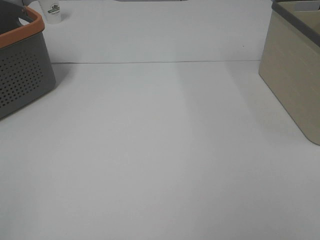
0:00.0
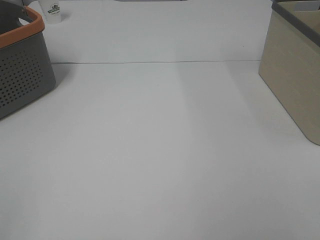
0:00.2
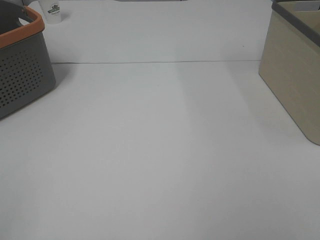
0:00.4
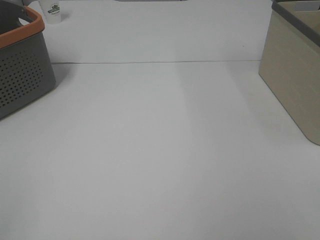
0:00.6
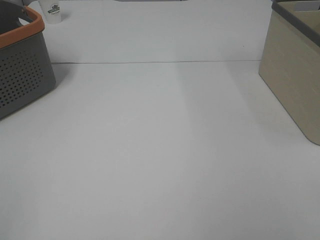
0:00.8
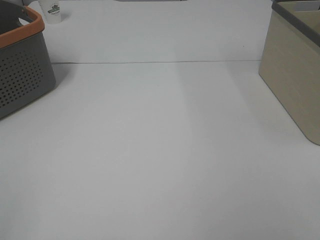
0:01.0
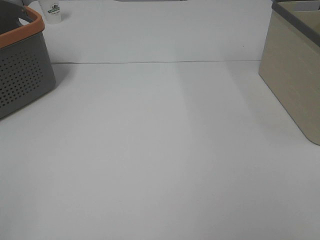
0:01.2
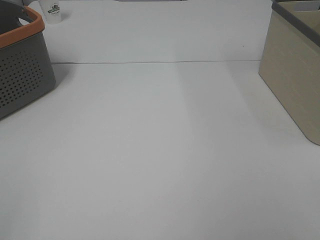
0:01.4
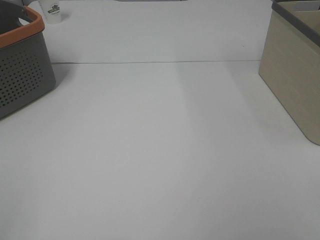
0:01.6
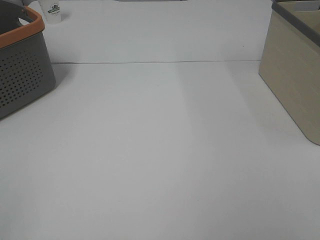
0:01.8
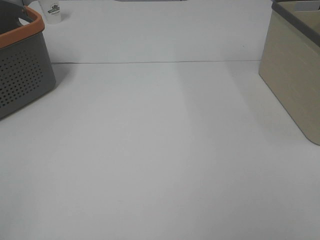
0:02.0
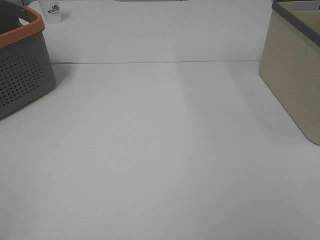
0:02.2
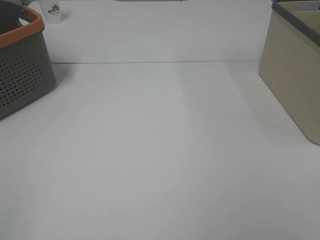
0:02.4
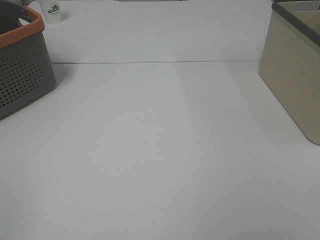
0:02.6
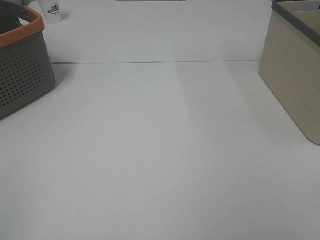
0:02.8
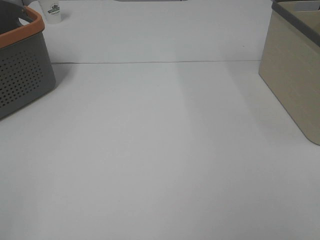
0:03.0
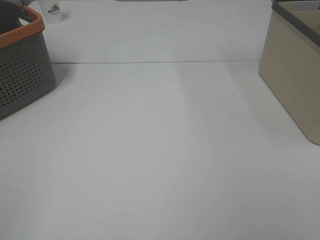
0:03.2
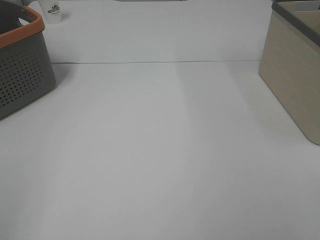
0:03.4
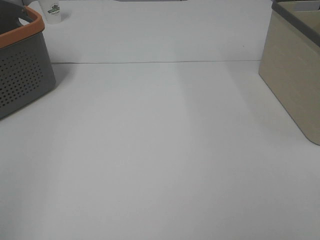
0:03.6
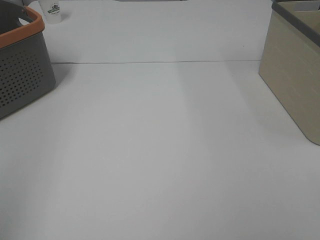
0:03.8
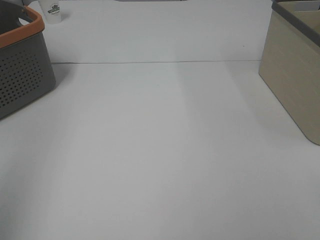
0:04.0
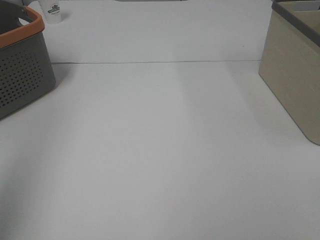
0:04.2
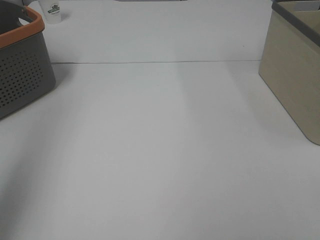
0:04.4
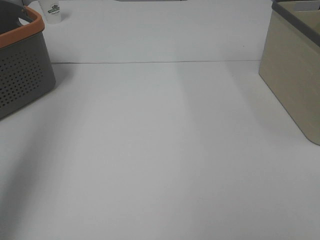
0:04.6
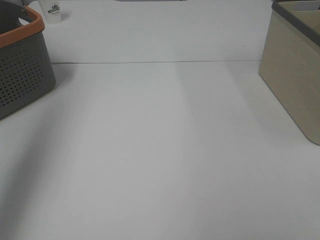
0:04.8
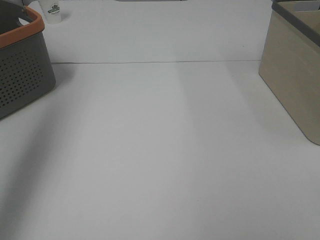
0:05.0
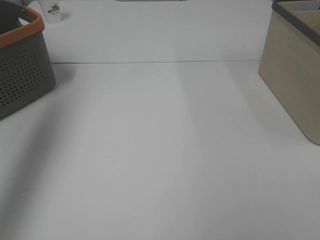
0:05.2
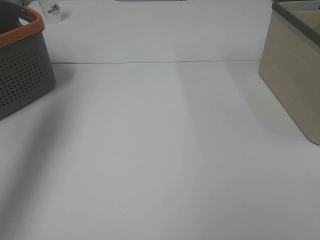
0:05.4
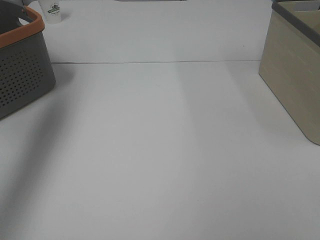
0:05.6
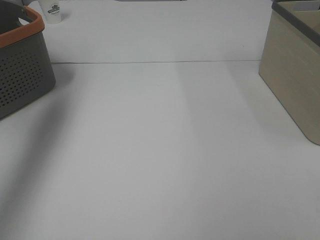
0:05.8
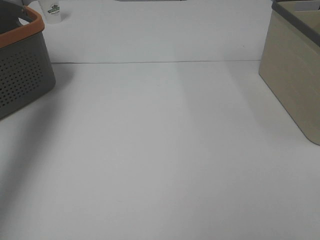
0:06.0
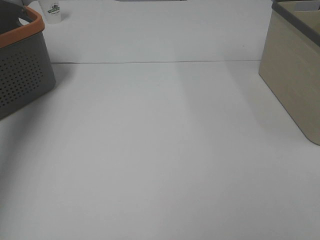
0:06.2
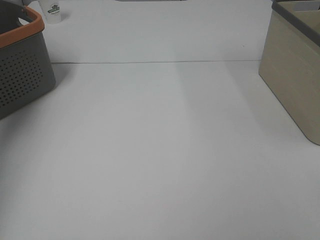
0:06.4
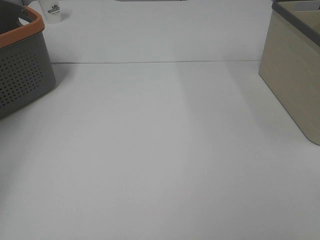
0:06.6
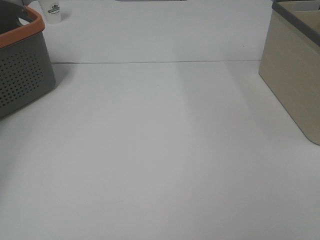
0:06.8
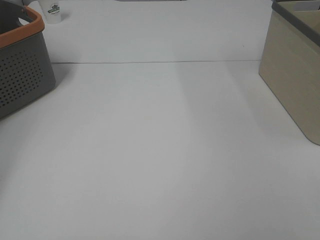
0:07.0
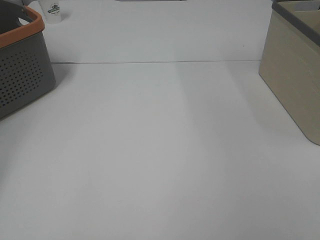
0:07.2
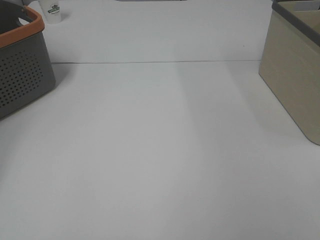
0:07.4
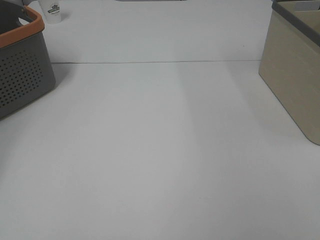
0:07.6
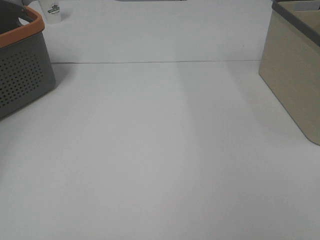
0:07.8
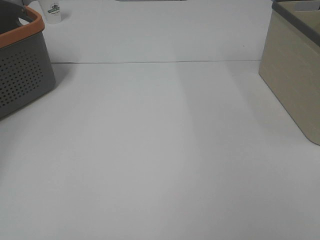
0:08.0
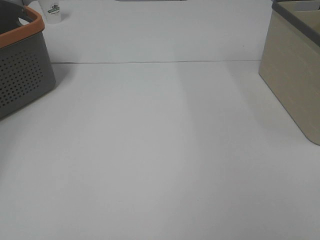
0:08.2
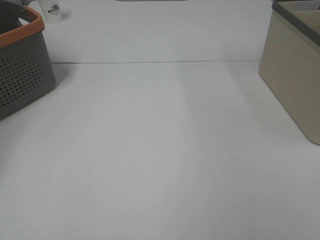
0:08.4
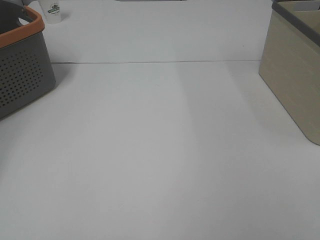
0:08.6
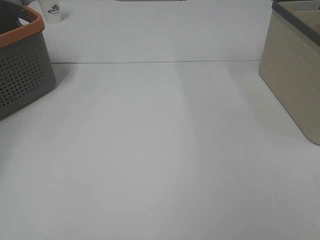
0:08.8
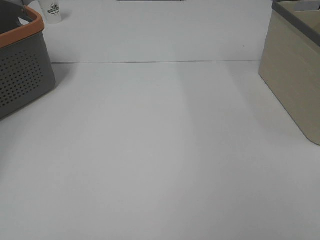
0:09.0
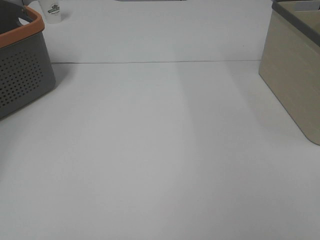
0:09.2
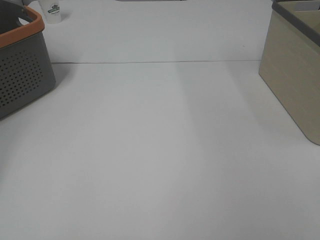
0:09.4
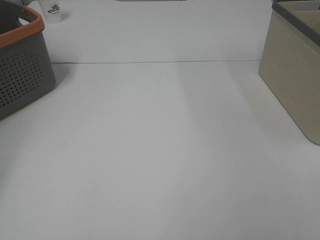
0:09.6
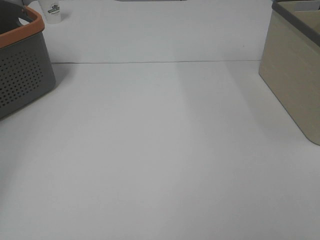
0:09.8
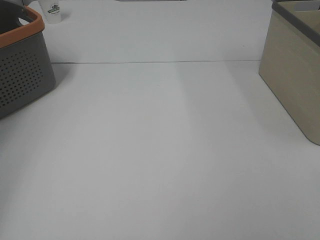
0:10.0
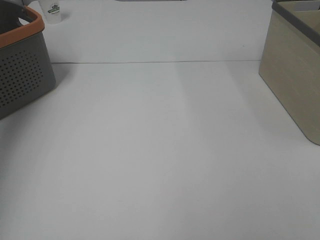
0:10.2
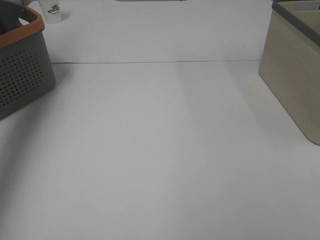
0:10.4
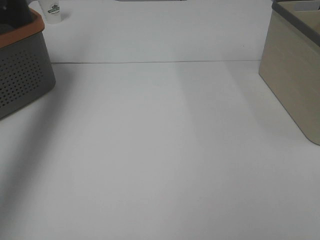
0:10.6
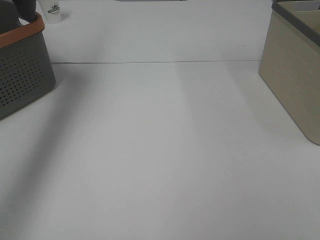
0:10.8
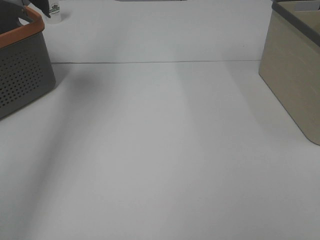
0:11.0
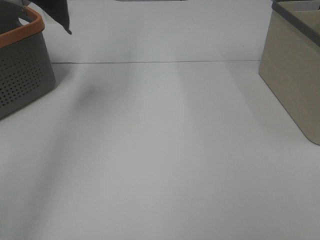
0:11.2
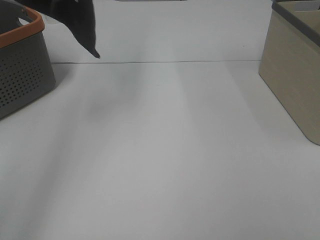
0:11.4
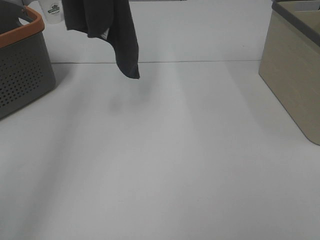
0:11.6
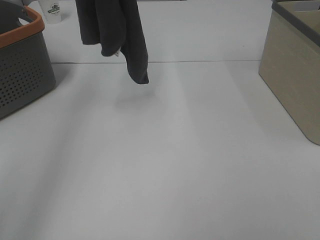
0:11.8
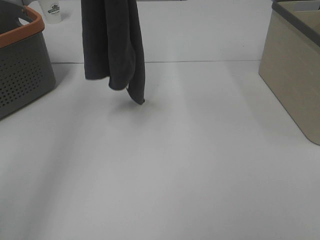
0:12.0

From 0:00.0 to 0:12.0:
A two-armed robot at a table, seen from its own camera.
Task of the whole recording: Remove the towel and place it.
From 0:00.0 to 0:03.0: Neither gripper changes place.
From 0:03.0 to 0:04.4: The left gripper goes roughly 20 cm forward and upward.
From 0:04.4 to 0:06.0: The left gripper travels forward by approximately 20 cm.
From 0:06.0 to 0:07.6: The left gripper shifts approximately 20 cm to the left, downward and forward.
From 0:09.0 to 0:10.4: The left gripper is displaced upward and to the right by roughly 30 cm, and closes.
From 0:10.4 to 0:12.0: The left gripper heads to the right, covering about 20 cm.

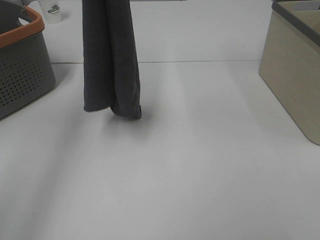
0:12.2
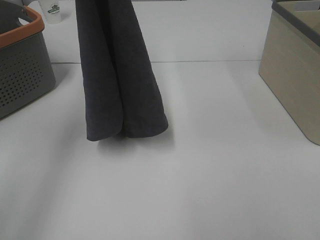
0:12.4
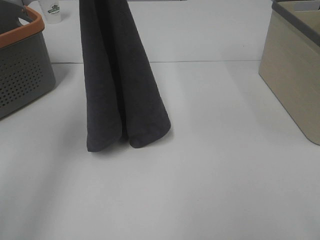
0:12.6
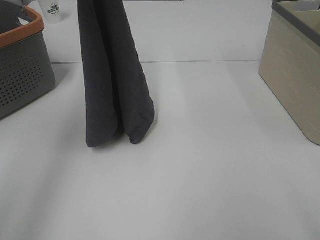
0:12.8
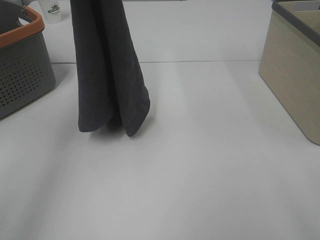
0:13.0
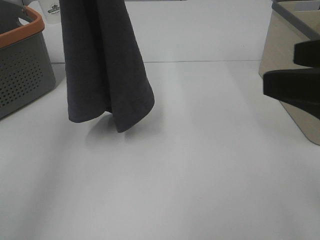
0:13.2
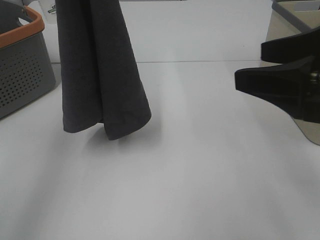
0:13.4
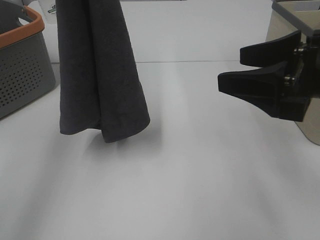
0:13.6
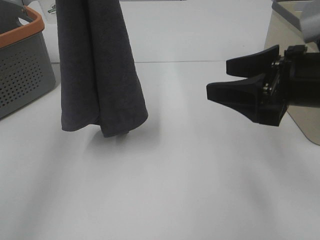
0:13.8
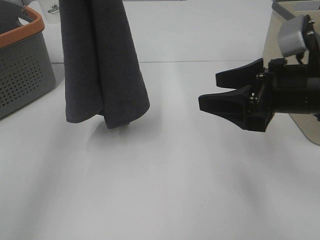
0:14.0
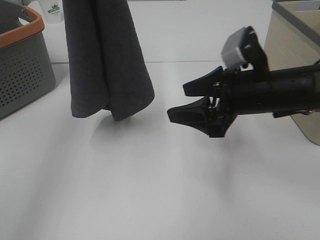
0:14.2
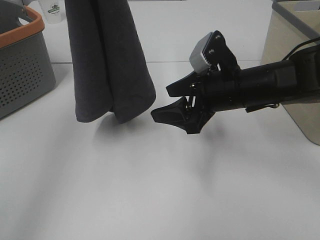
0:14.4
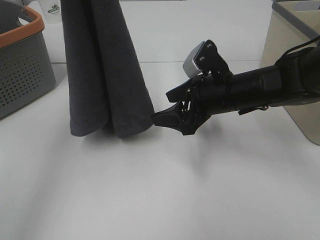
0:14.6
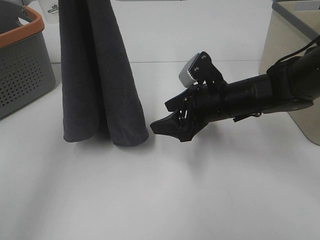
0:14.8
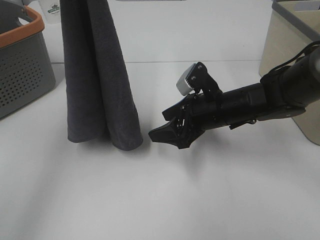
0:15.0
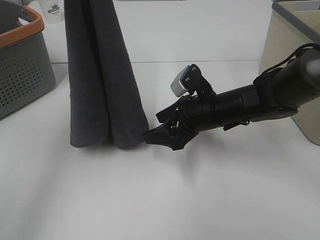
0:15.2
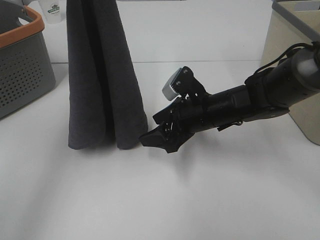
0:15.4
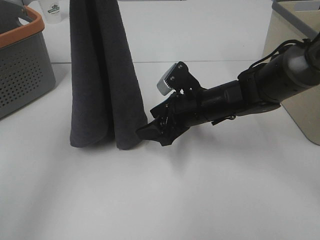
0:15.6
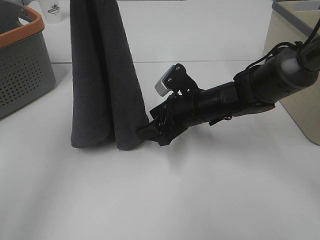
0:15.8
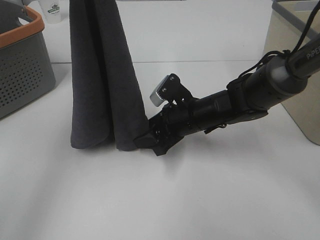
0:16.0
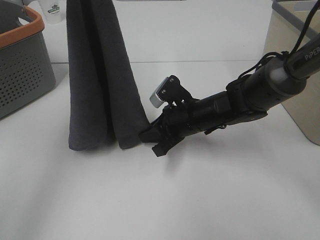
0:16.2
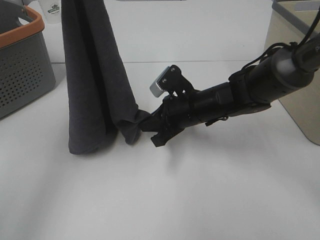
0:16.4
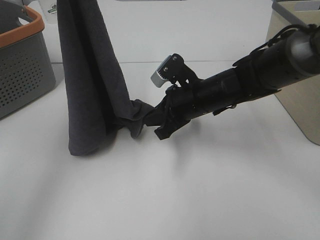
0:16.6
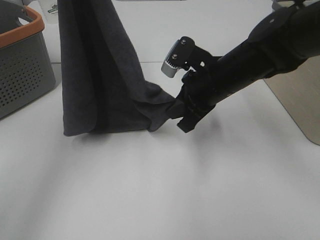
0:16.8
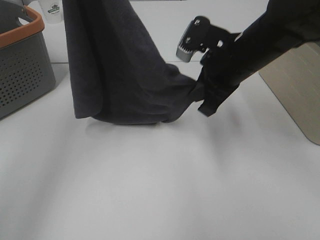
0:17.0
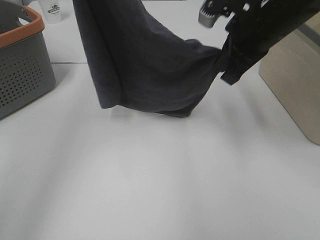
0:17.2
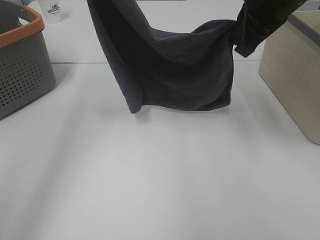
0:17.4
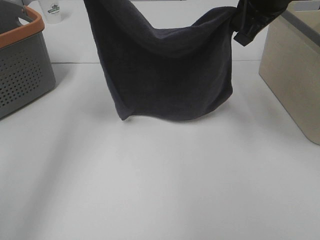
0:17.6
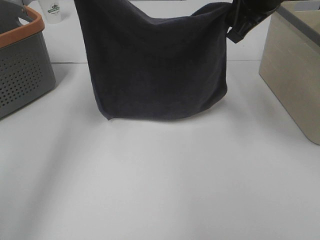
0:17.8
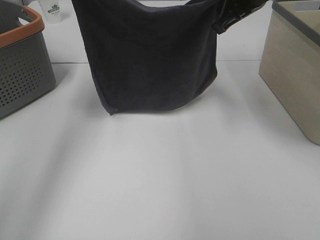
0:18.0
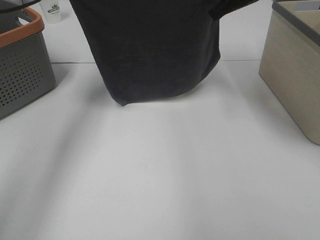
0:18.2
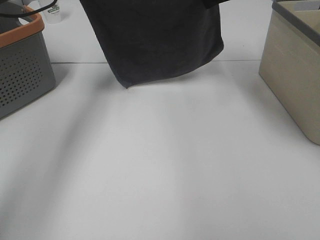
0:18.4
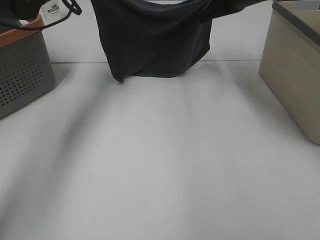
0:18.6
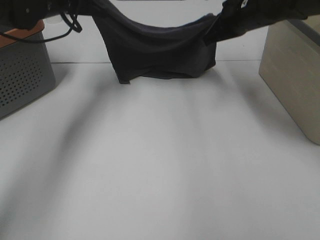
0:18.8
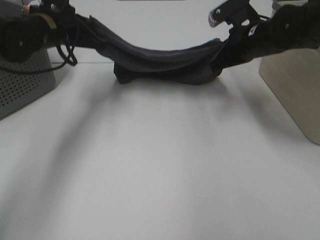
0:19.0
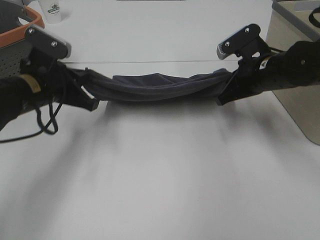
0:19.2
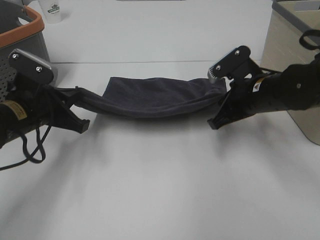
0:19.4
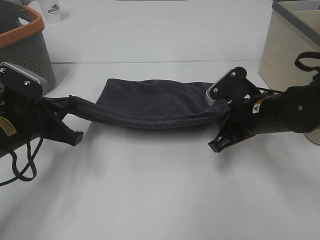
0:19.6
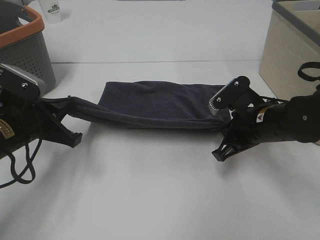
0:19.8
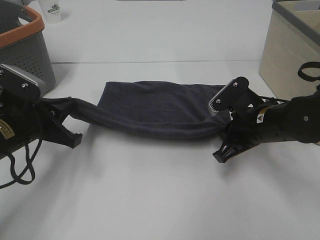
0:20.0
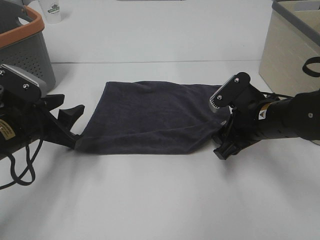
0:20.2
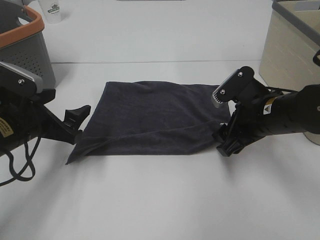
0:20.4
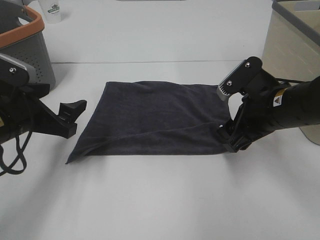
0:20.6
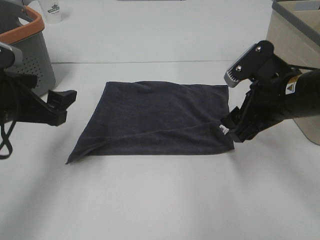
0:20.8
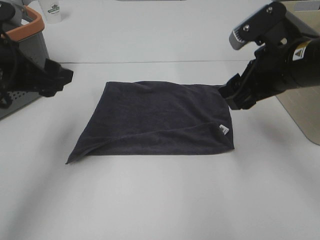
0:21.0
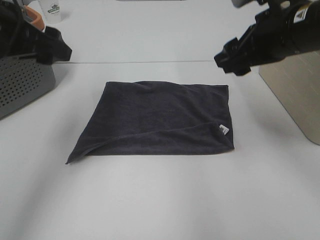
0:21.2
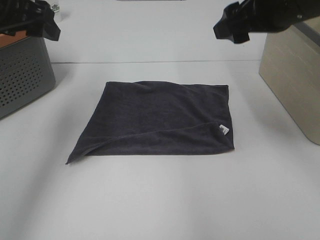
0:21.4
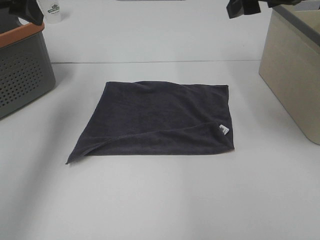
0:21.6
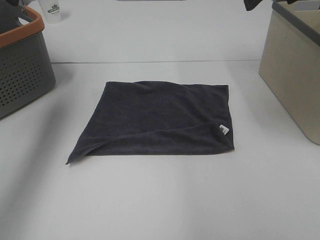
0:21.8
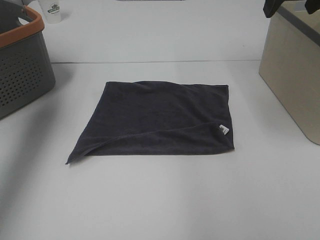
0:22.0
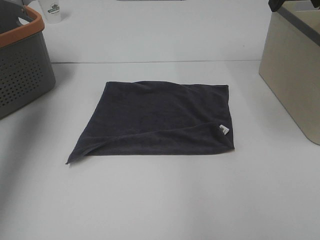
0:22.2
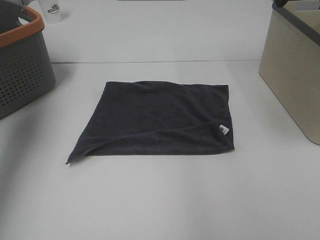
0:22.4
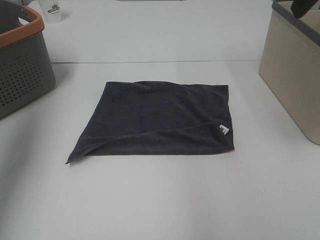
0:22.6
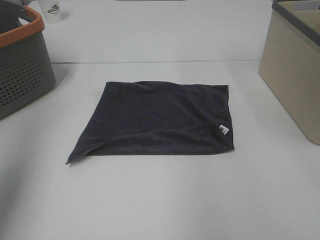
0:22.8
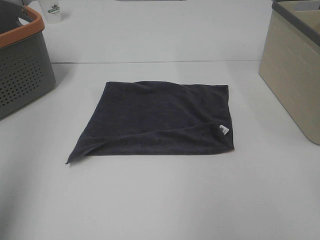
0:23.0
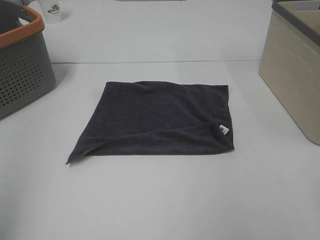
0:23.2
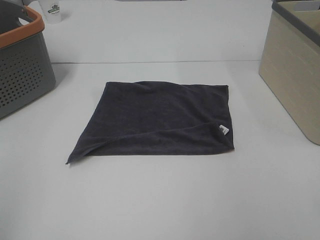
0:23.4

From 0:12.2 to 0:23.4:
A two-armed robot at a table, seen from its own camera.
Task of the whole recording: Remove the towel and place it.
Step, from 0:12.2 to 0:14.4: Right hand: grab a corner of the grey towel and straighten it.
Step, from 0:14.6 to 0:16.0: Left hand: spread the grey towel flat on the table.
Step, from 0:14.6 to 0:16.0: Right hand: spread the grey towel flat on the table.
From 0:12.2 to 0:13.8: The right gripper heads forward, covering about 25 cm.
From 0:13.8 to 0:15.4: The right gripper travels downward, to the left and forward by roughly 20 cm. Meanwhile the left gripper heads downward, covering about 5 cm.
From 0:15.4 to 0:17.0: The right gripper moves upward, roughly 15 cm, and closes its fingers.
From 0:17.0 to 0:18.6: The right gripper travels forward by approximately 15 cm; the left gripper goes some 20 cm downward and forward.
From 0:18.6 to 0:20.2: Both grippers travel together backward and downward, some 25 cm. The right gripper opens its fingers. Meanwhile the left gripper opens up.
From 0:20.2 to 0:21.8: The two grippers go approximately 25 cm upward.
From 0:21.8 to 0:23.4: The two grippers go roughly 30 cm backward.
